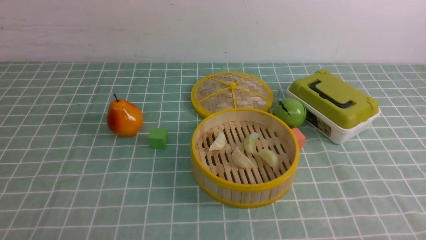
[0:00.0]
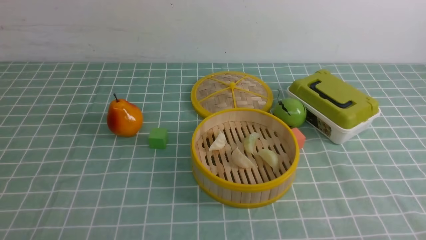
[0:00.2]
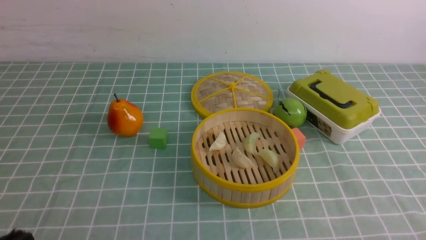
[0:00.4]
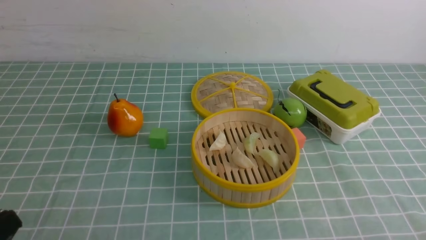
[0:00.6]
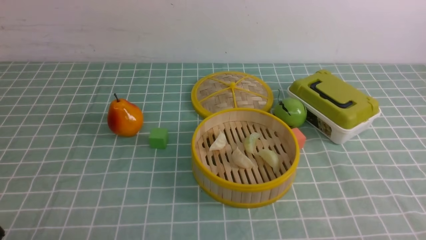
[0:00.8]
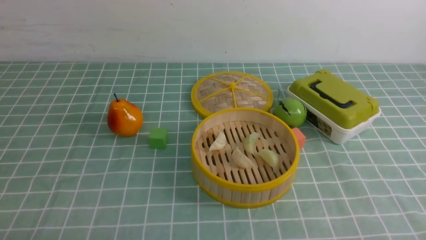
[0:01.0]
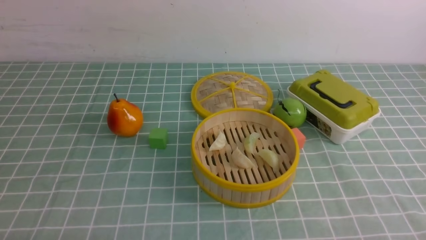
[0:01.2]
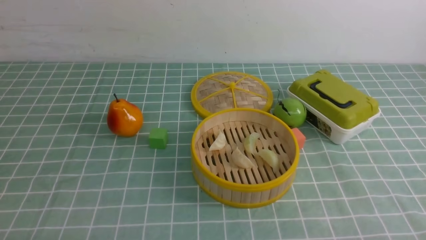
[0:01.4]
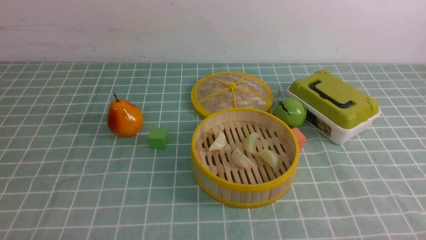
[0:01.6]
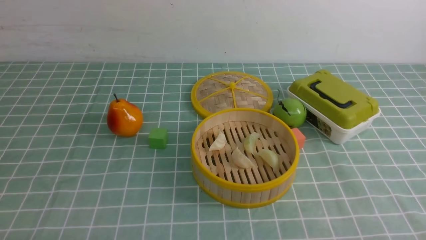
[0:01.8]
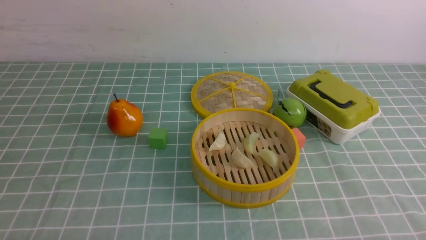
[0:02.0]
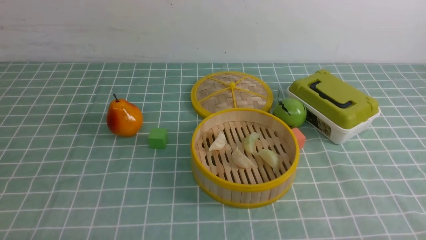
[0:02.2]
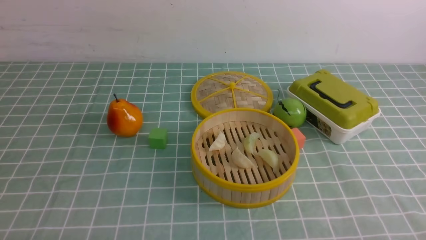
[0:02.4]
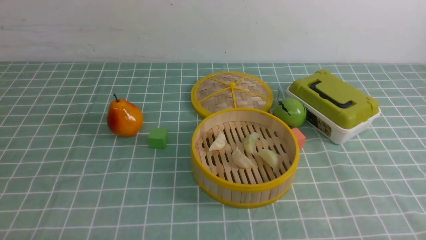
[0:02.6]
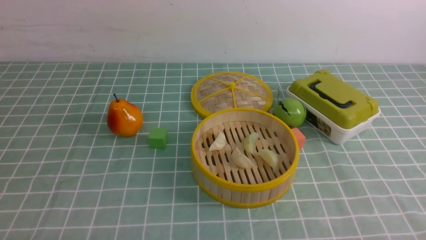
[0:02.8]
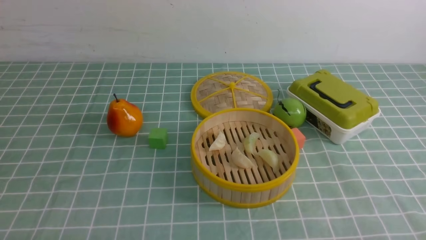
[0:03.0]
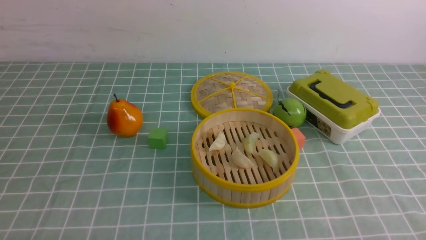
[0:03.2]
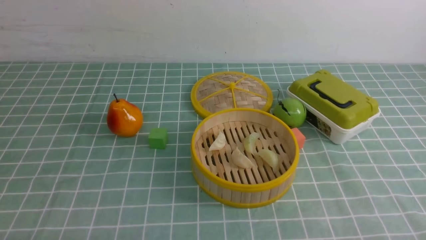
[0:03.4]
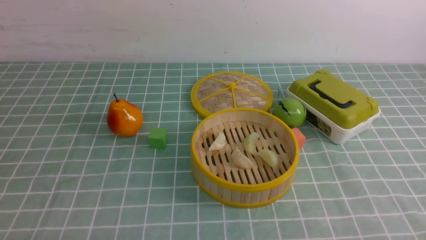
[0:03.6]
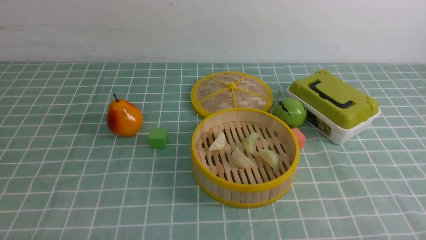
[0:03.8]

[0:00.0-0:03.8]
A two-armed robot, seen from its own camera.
Task of the whole recording: put the dumplings into the steamer on the table with the blue tablecloth.
0:02.6 to 0:03.8: Neither gripper changes place.
